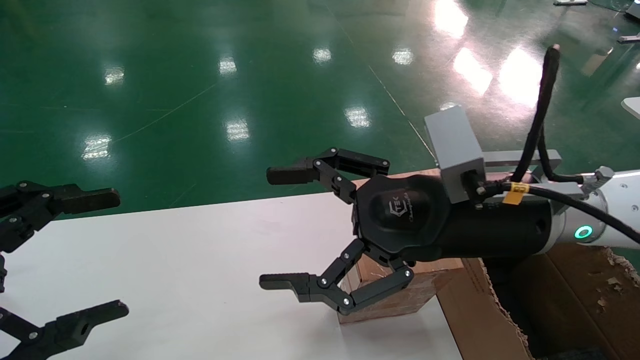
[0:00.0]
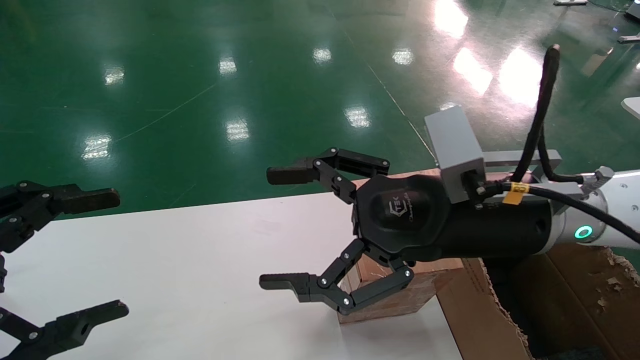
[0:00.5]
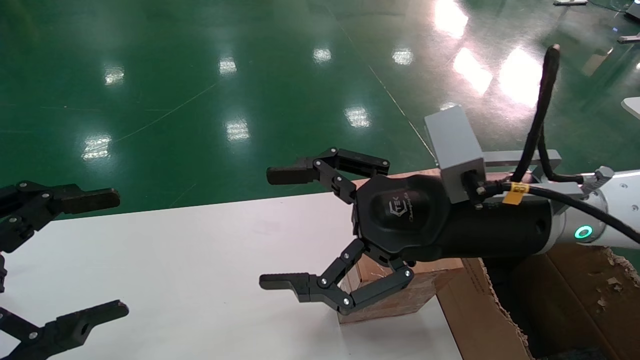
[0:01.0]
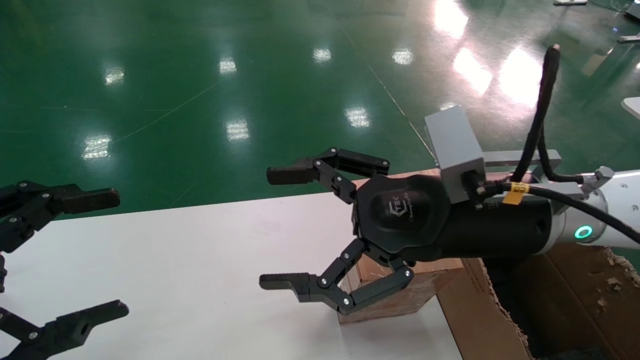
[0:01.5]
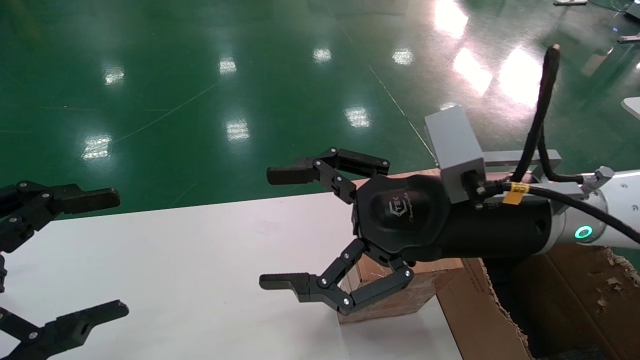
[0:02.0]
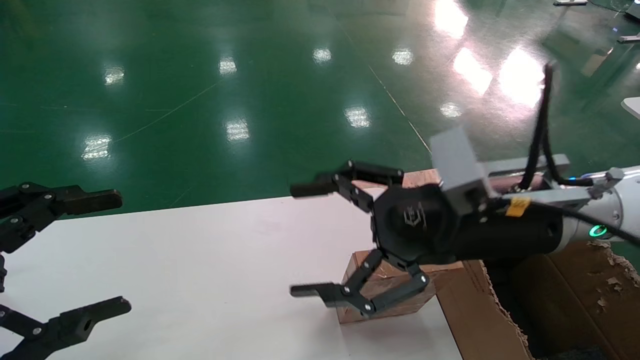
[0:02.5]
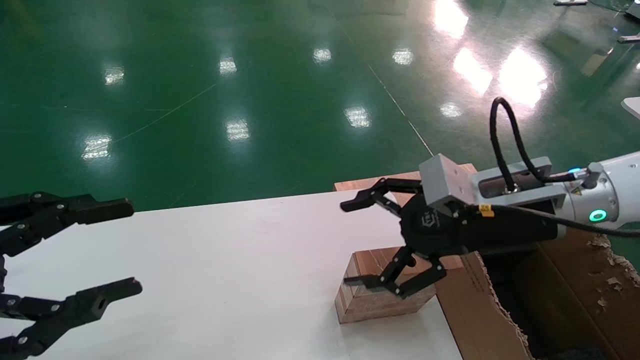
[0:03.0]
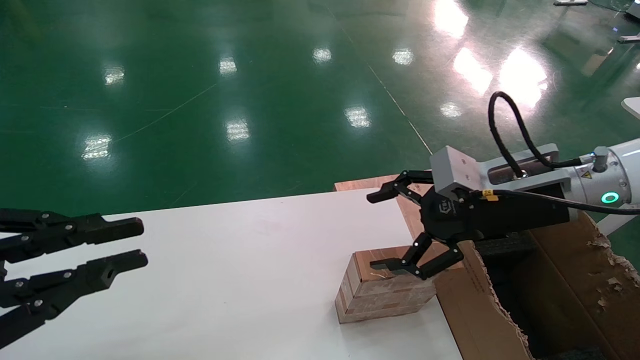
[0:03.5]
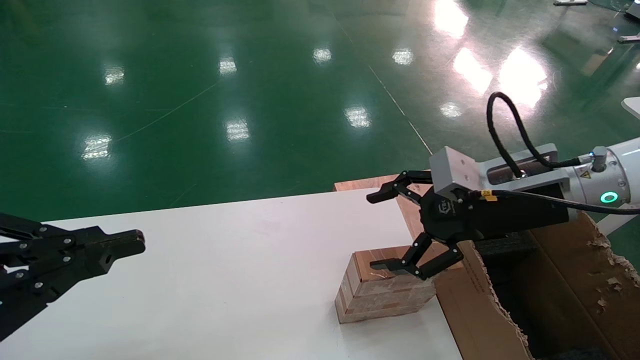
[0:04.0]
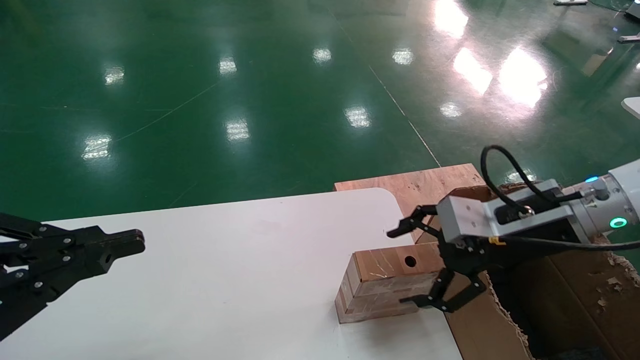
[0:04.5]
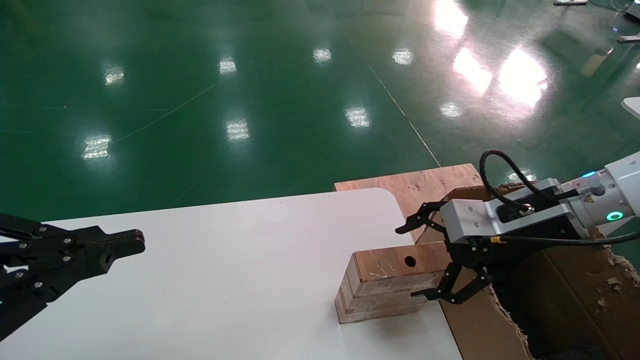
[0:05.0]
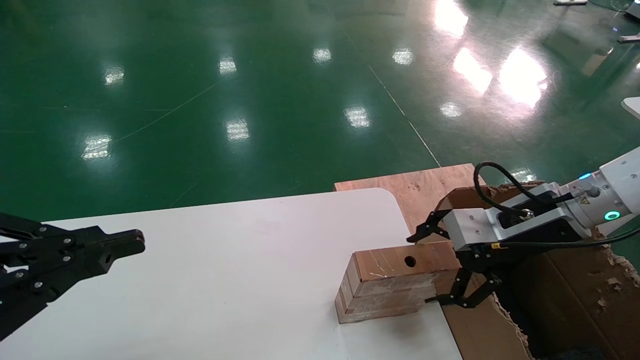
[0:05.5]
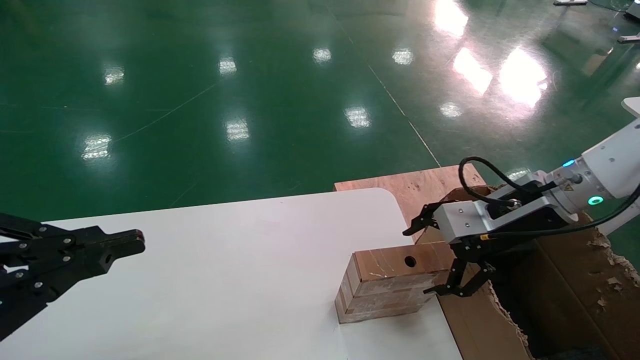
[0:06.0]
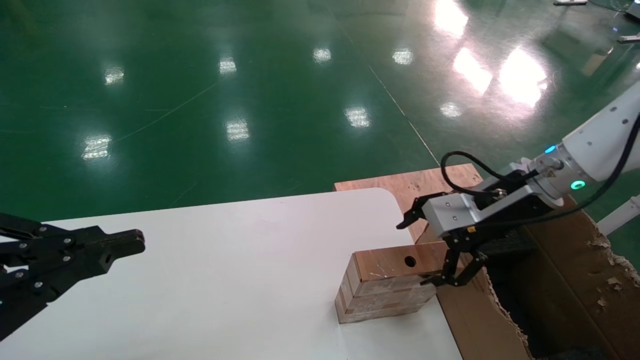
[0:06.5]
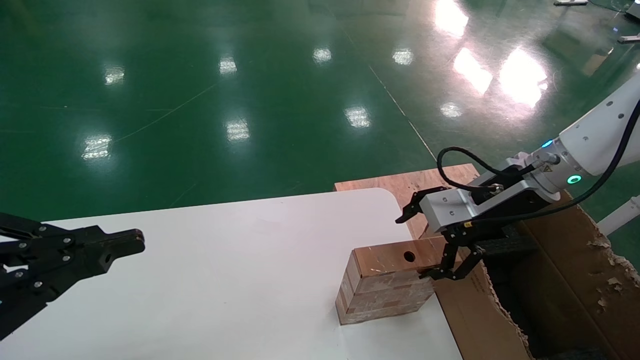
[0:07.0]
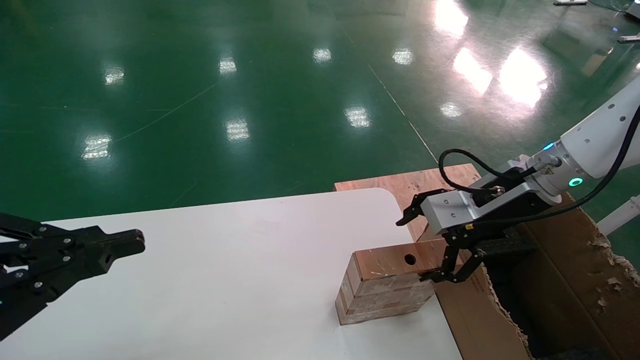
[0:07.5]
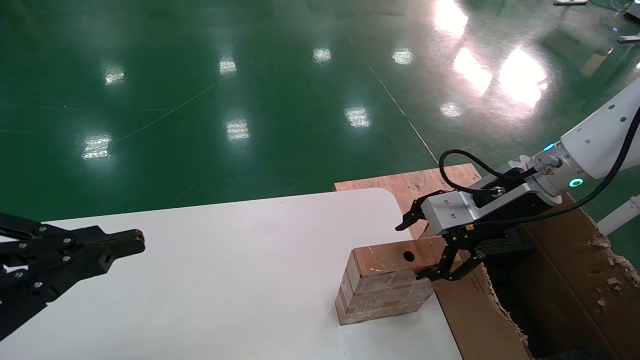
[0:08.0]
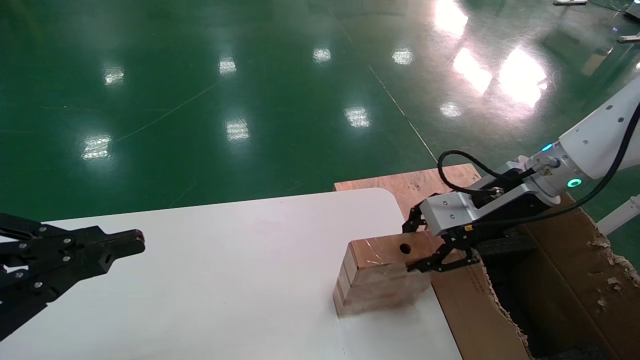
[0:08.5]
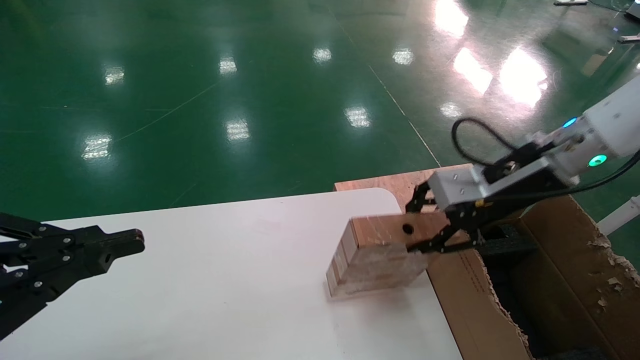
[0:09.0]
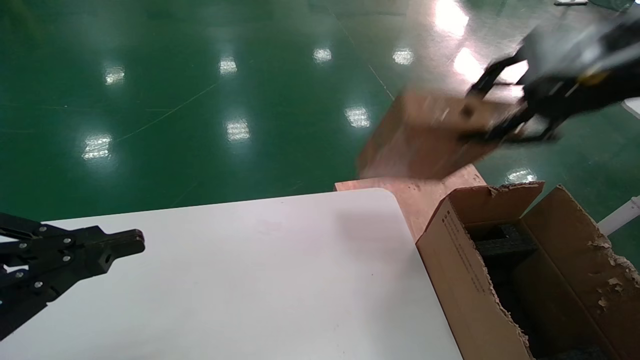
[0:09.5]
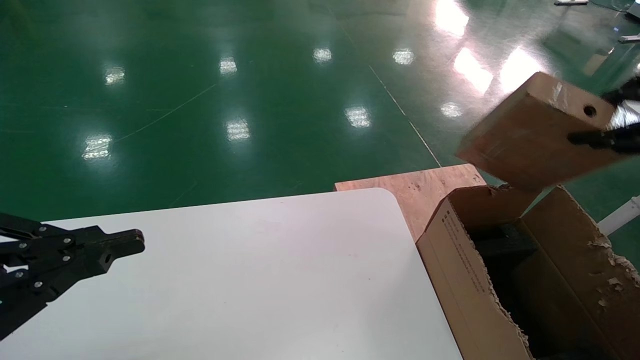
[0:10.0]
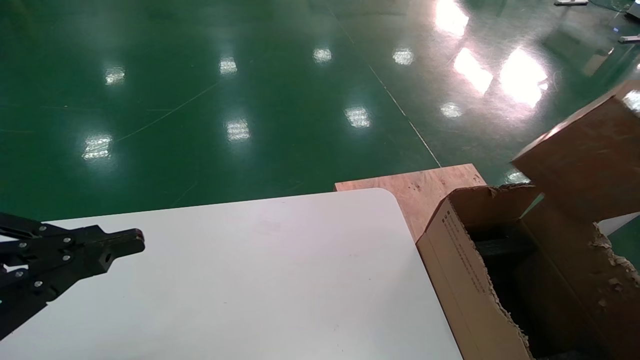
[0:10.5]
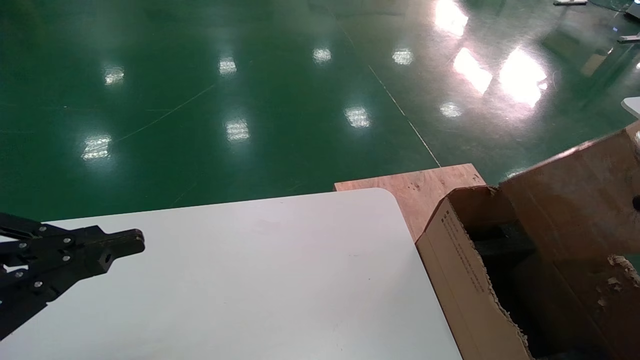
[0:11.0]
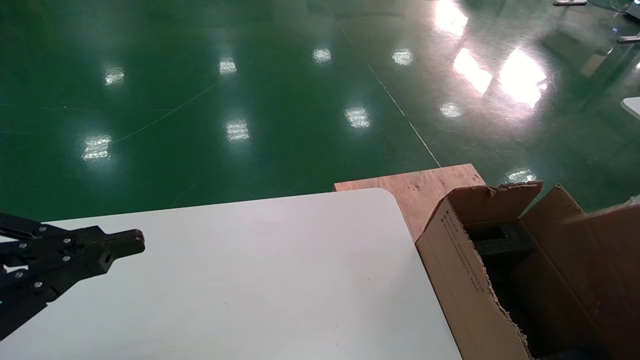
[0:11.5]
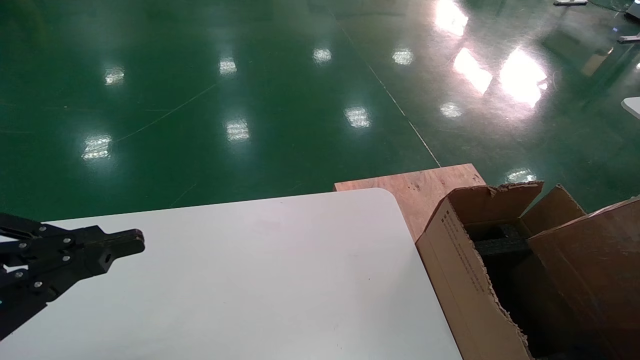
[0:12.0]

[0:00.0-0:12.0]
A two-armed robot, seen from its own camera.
Task of the whole recording: put the box on the table into the big box.
Step, 0:02.5 to 0:08.5: Pick up the mouse and the power cord paper box.
0:00.0 to 0:02.0: Both grippers stay put.
0:02.0 to 0:04.0: The left gripper closes its fingers, while the right gripper is displaced to the right by about 10 cm.
0:04.0 to 0:06.0: The right gripper shifts by approximately 5 cm.
0:06.0 to 0:08.0: The grippers move only a little.
0:08.0 to 0:10.0: The right gripper moves to the right, upward and backward, some 30 cm, and closes up.
0:10.0 to 0:12.0: The right gripper moves downward and backward, approximately 20 cm.

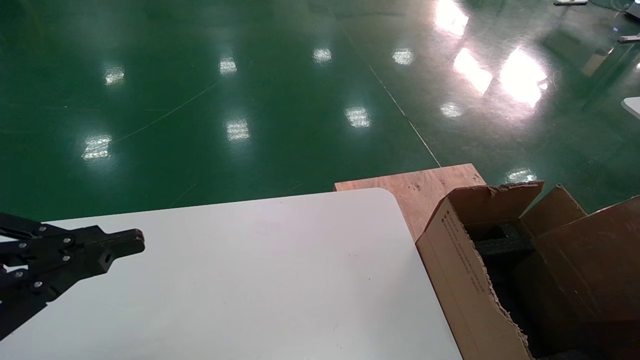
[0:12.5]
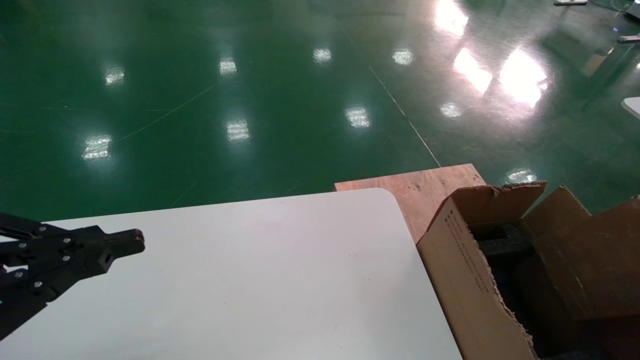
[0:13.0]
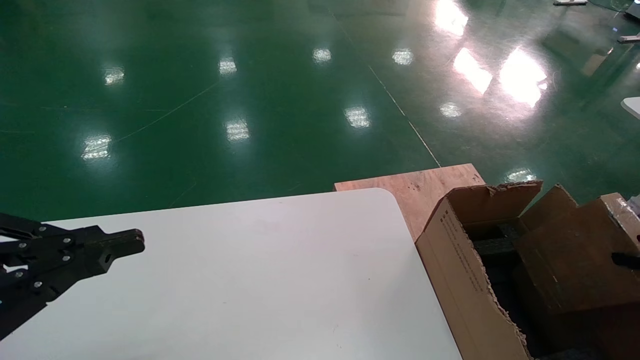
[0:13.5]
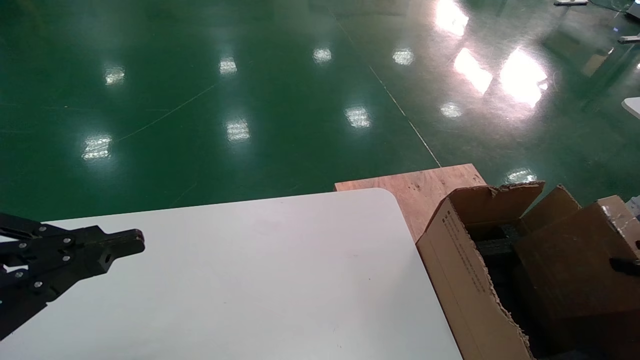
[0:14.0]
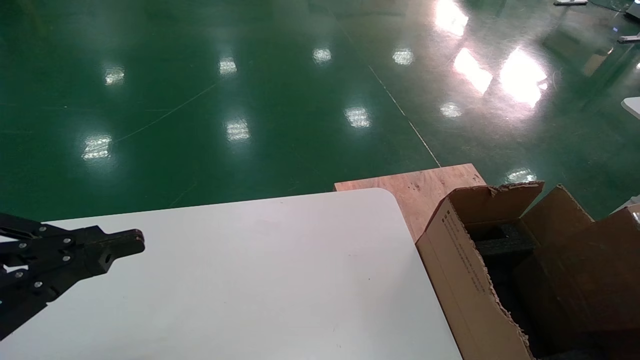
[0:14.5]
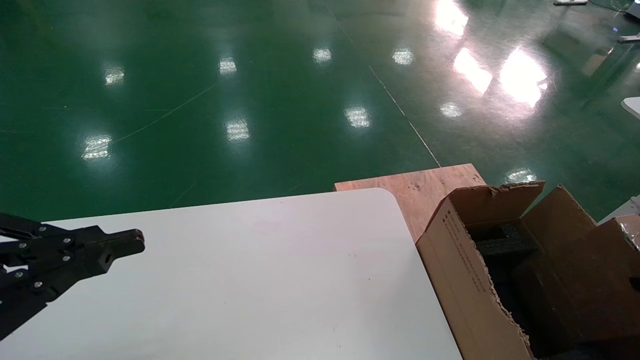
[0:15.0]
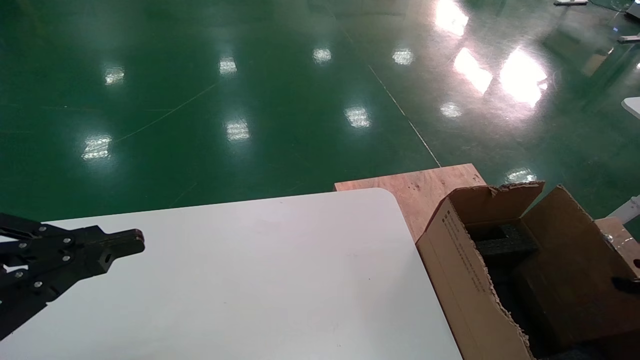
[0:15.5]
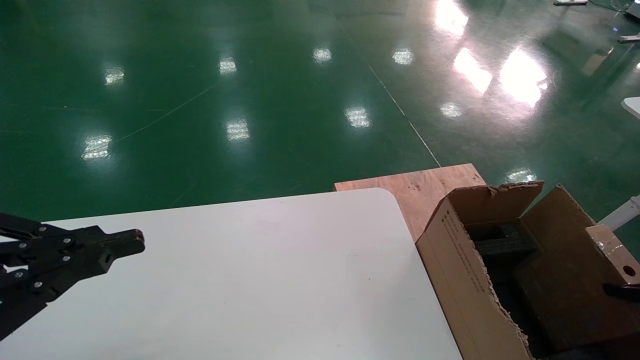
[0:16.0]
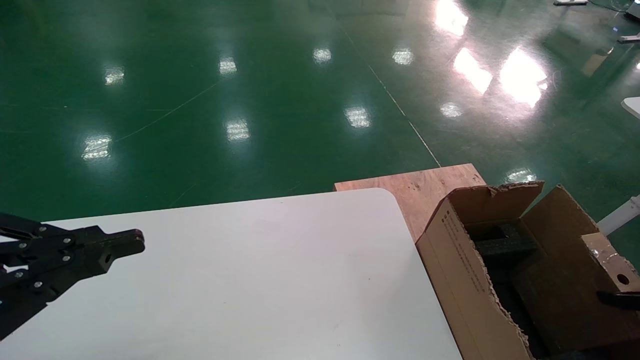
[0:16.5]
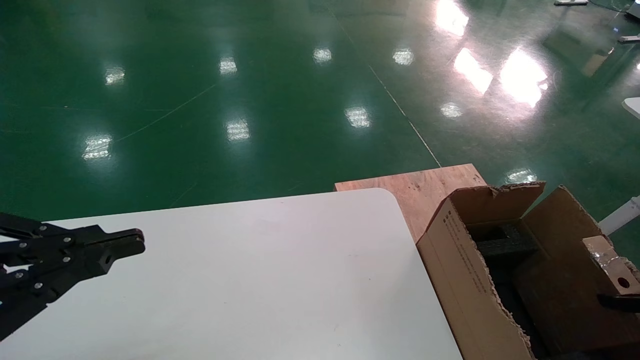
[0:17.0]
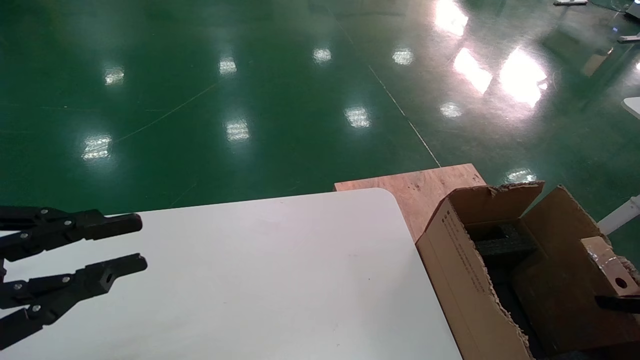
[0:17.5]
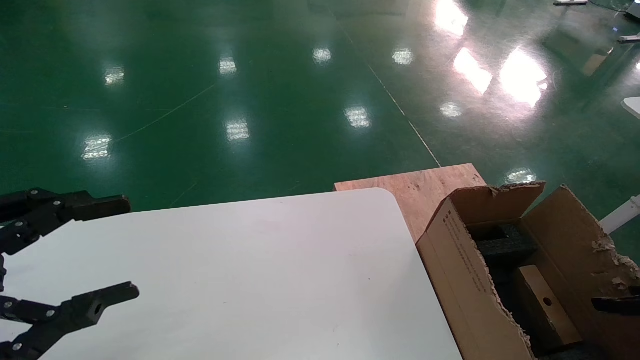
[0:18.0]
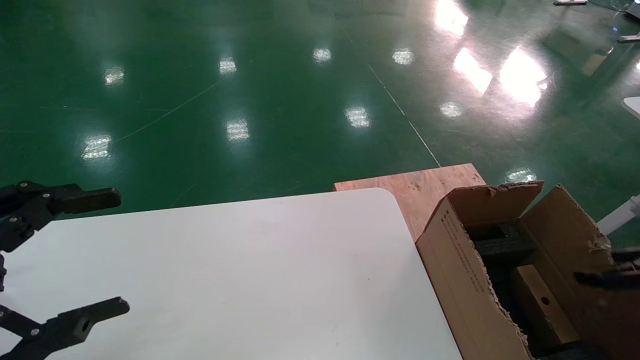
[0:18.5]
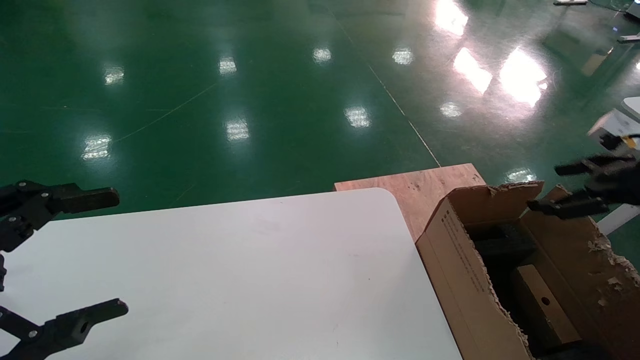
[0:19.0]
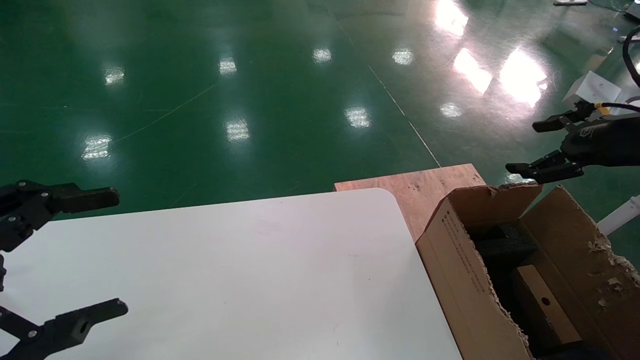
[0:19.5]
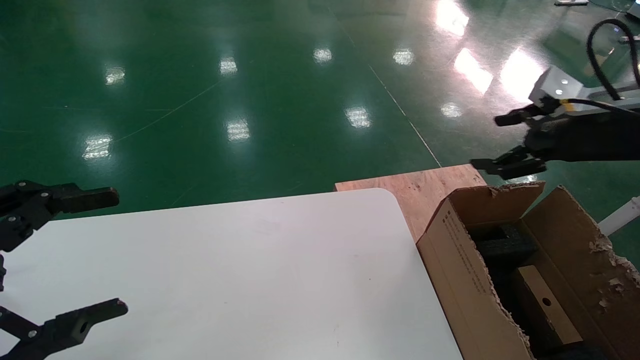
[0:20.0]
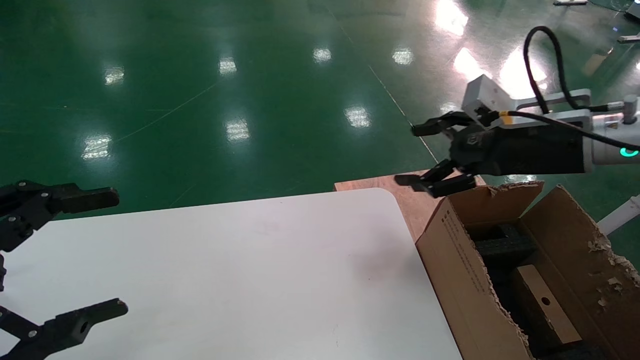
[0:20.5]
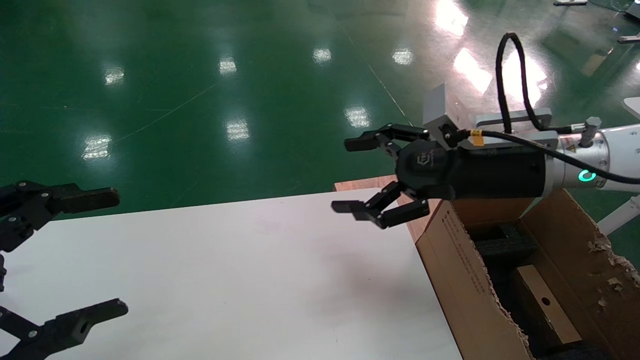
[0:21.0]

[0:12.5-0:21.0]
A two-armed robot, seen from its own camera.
Task of the whole recording: put the box on the table into the big box.
Step, 0:12.5 to 0:17.5: Place the mouse and the power cord paper box into the container.
0:14.5 to 0:16.5: The right gripper heads downward and forward, covering roughly 10 cm.
0:16.5 to 0:19.0: The right gripper goes about 15 cm upward, forward and to the left, and opens up, while the left gripper opens up.
0:19.0 to 0:21.0: The right gripper is displaced to the left by about 25 cm.
